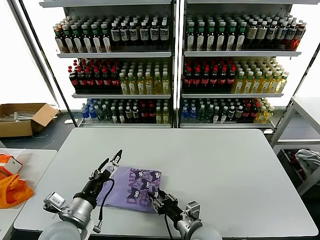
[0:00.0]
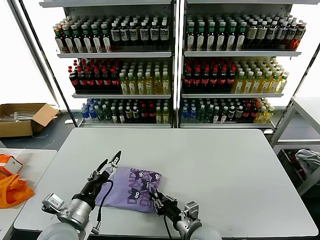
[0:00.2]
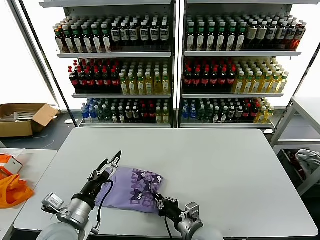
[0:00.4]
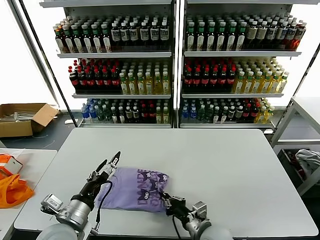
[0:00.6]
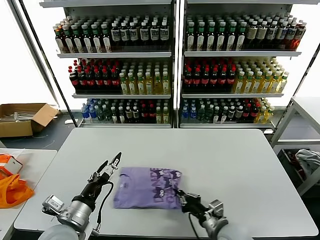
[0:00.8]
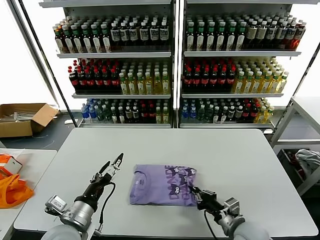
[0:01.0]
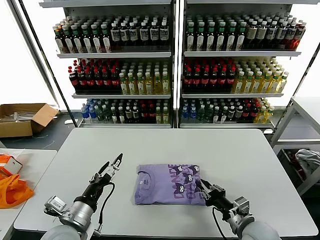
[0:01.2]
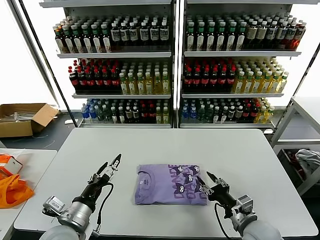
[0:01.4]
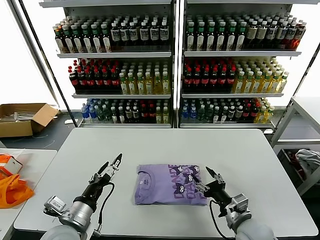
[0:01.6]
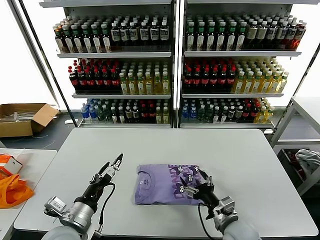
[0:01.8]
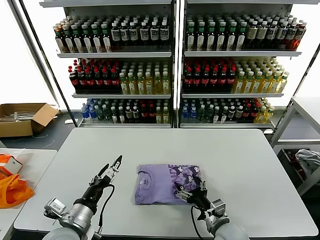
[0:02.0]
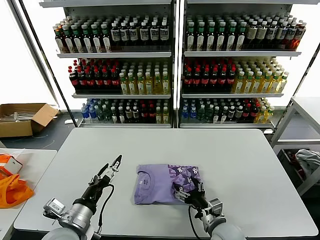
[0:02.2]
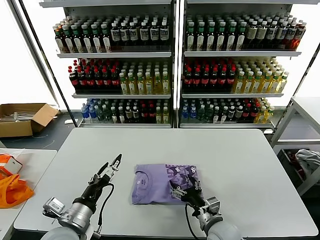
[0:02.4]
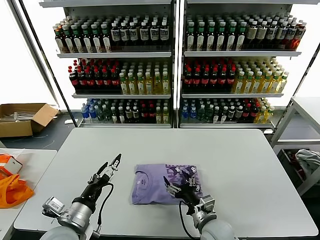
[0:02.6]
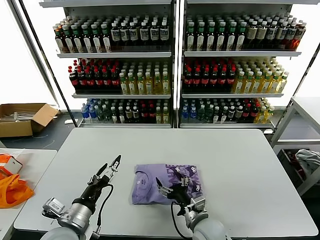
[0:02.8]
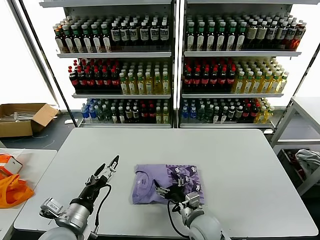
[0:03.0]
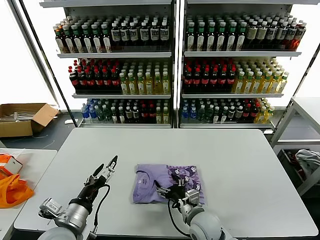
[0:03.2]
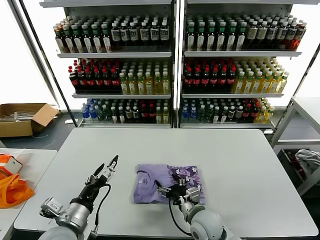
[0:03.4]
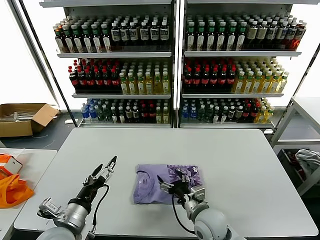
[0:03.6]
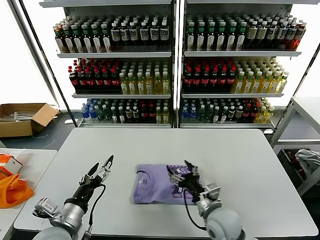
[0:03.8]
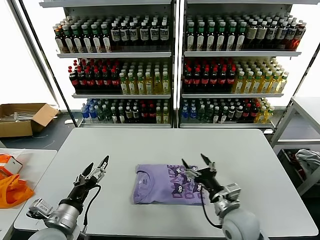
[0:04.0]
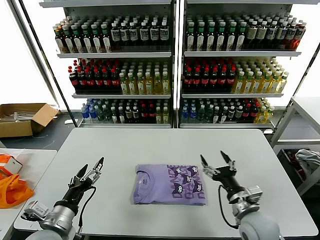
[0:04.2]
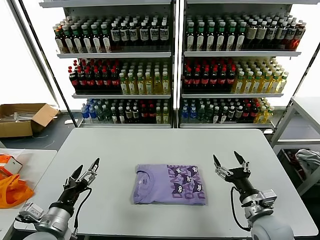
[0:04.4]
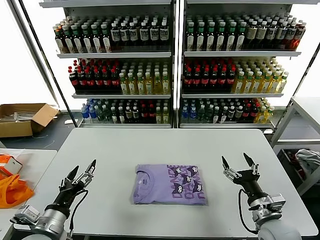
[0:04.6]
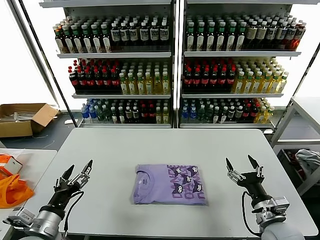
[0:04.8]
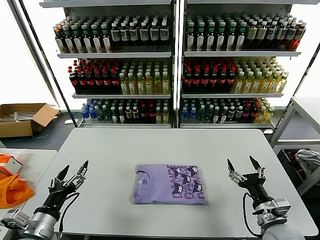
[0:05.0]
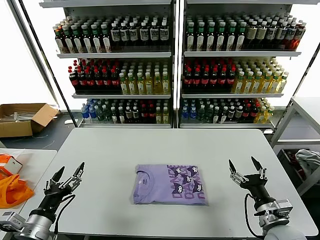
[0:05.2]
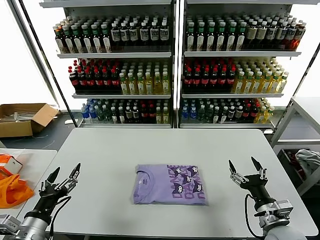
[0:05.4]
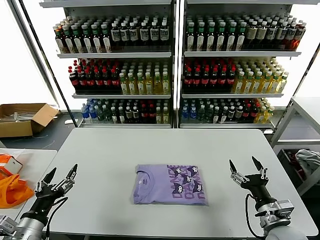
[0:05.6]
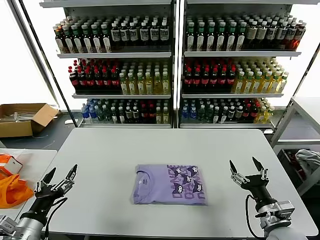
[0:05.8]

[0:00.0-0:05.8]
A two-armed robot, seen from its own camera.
Task of the whole recording: fold and organize the clothes.
Step, 0:00.0 to 0:03.4: Drag the clothes to the center of the table.
0:00.0 to 0:01.4: The right gripper moves to the right, about 15 cm, and closes, then reopens.
0:01.4 to 0:02.8: The right gripper goes approximately 15 cm to the left, and opens its fingers.
0:02.8 to 0:04.4: The left gripper moves approximately 5 cm. The right gripper heads to the right and upward, covering some 15 cm.
0:04.4 to 0:05.8: The left gripper goes roughly 5 cm to the left, while the right gripper shifts by roughly 5 cm.
